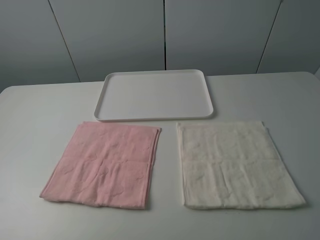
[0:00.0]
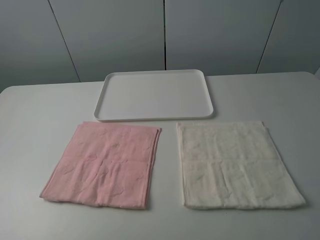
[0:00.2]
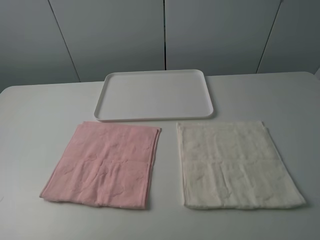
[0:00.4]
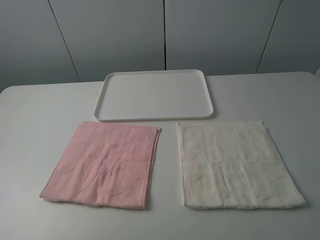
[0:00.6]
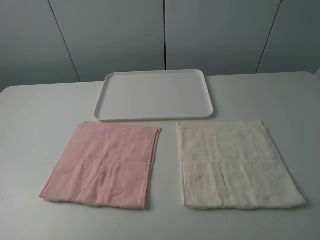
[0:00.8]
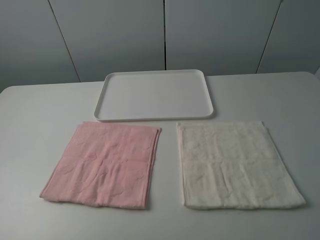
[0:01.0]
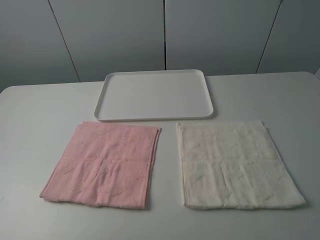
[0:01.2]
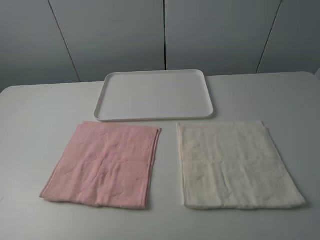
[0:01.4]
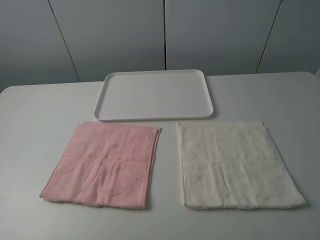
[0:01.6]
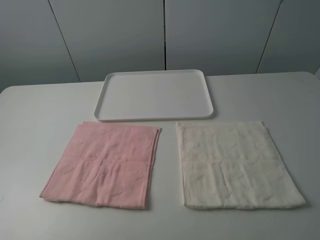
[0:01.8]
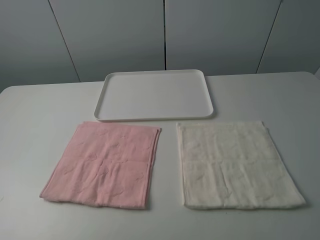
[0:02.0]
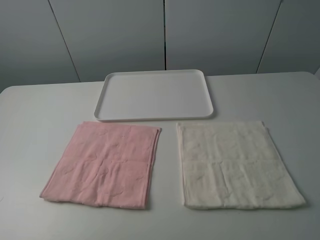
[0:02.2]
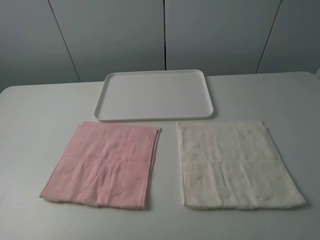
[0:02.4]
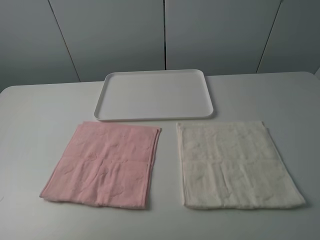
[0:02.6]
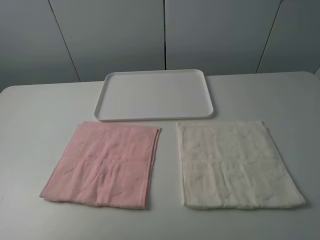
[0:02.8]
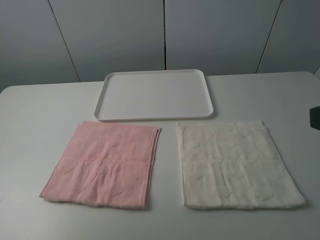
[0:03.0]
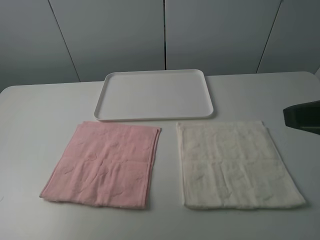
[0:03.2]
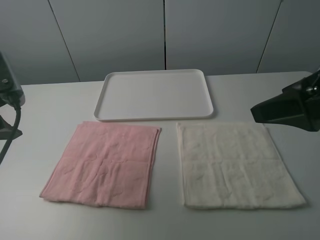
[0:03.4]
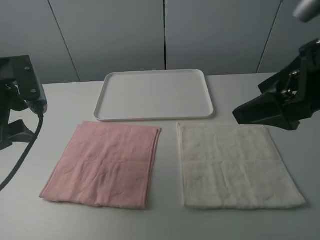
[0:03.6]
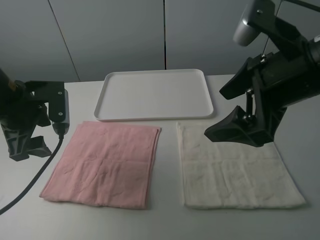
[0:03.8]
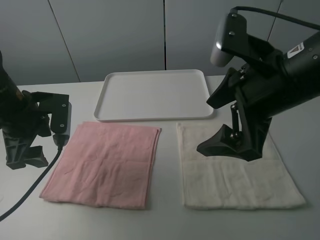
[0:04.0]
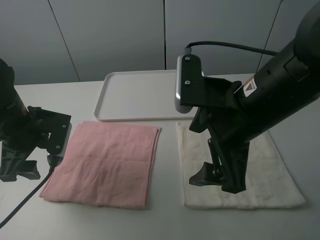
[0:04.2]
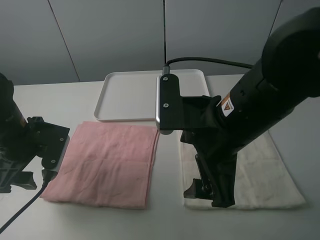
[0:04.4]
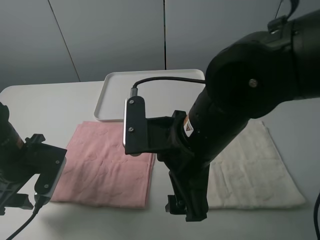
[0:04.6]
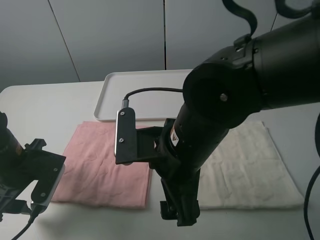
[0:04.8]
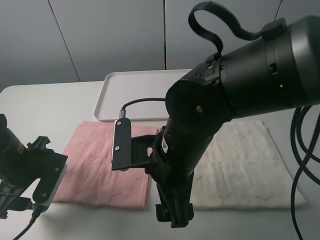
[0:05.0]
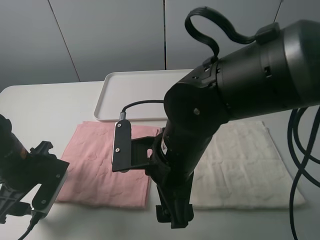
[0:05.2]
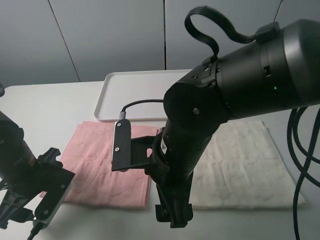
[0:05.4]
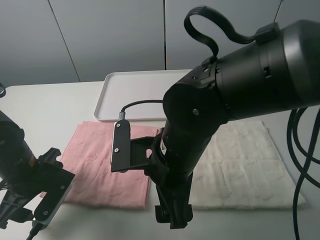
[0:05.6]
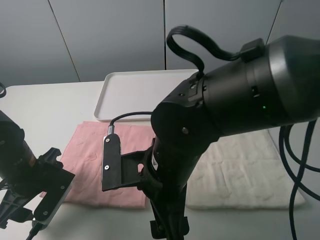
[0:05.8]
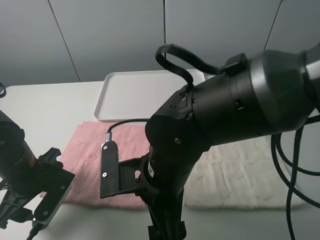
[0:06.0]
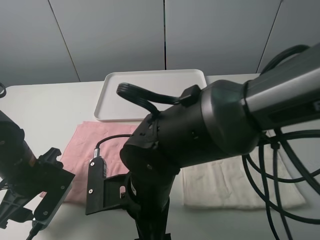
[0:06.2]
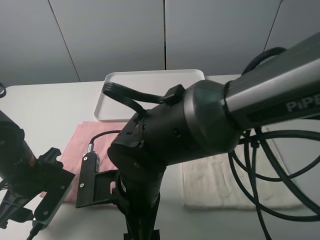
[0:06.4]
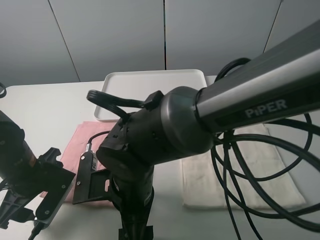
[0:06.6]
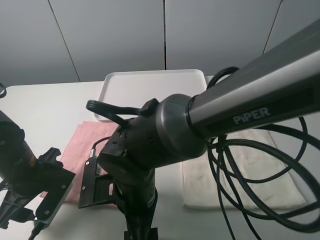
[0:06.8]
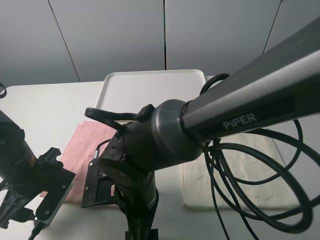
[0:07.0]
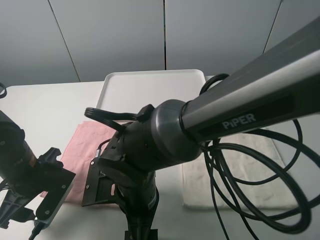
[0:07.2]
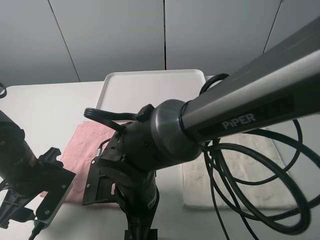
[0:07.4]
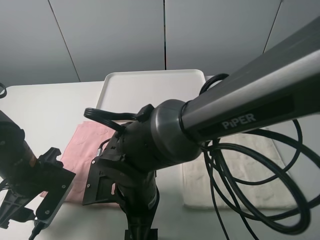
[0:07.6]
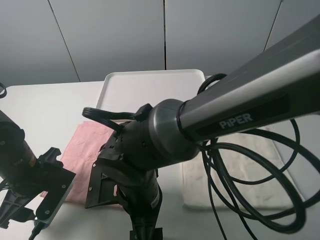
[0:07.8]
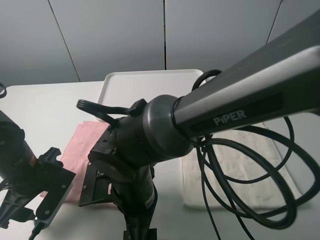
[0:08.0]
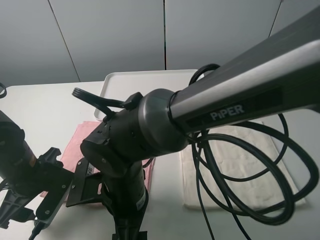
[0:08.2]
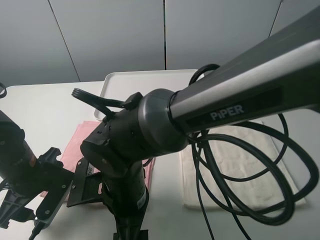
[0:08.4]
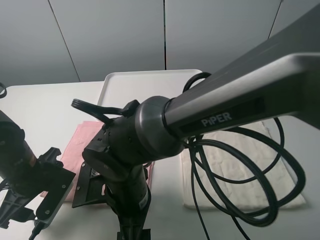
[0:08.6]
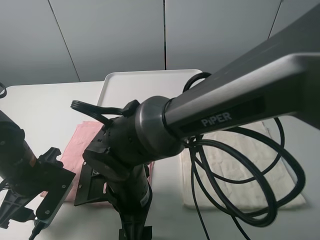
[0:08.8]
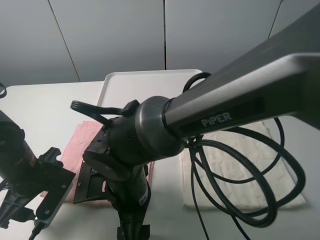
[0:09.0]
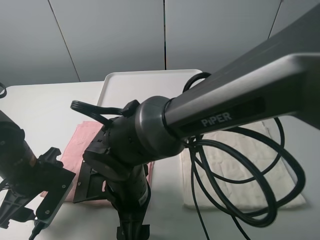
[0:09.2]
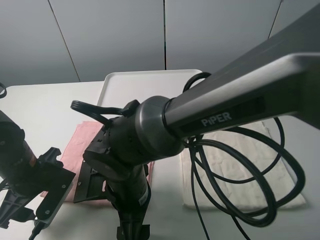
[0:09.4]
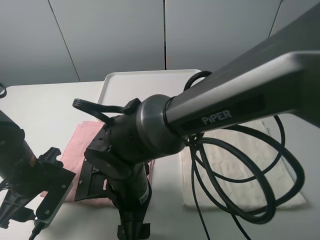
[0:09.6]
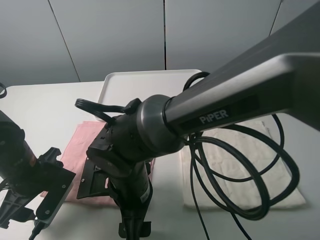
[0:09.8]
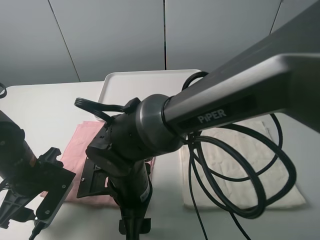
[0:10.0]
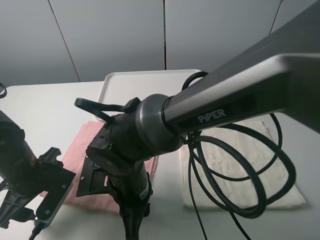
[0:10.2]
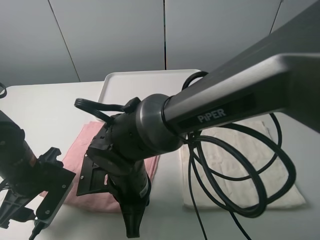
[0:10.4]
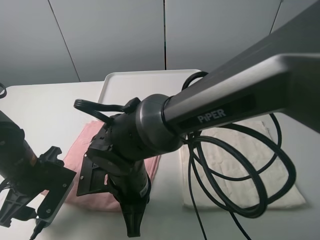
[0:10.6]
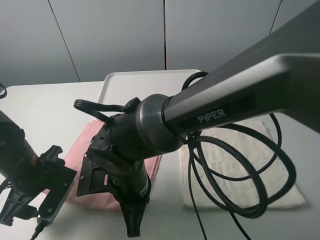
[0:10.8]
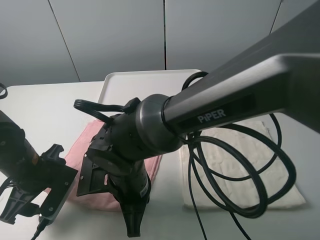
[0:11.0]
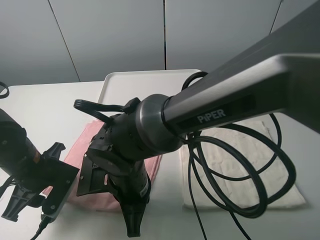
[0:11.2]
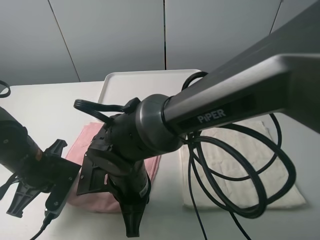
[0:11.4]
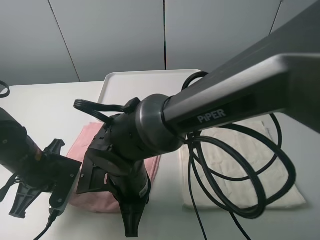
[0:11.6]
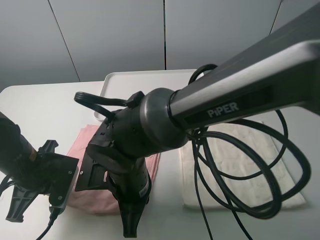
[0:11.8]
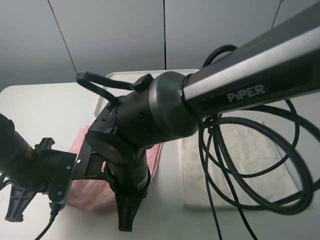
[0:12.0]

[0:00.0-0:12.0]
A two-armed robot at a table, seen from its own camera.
Task of the whole recording: fold one of the towels by two grippers and place it on the tray,then fold another towel by two grippers and place it on the folded towel.
Step, 0:00.0 to 0:11.4: Grasp the pink towel with the left gripper.
0:00.0 to 0:01.6: Both grippers stay put.
0:03.0 to 0:04.4: The right gripper is displaced to the left, downward and forward by approximately 20 cm, while the left gripper moves downward and forward, approximately 20 cm.
0:04.4 to 0:06.0: The right gripper heads downward and to the left, covering roughly 10 cm, while the left gripper shifts by about 5 cm.
0:06.0 to 0:07.6: The right gripper shifts by about 5 cm.
0:09.0 to 0:10.4: The right gripper closes.
0:10.4 to 0:12.0: The left gripper closes.

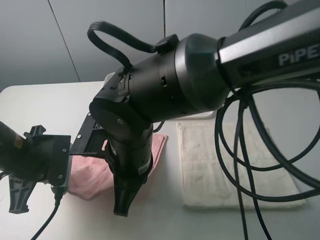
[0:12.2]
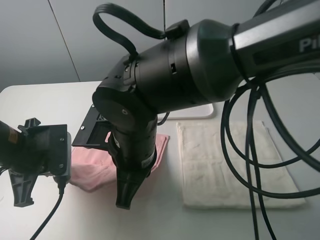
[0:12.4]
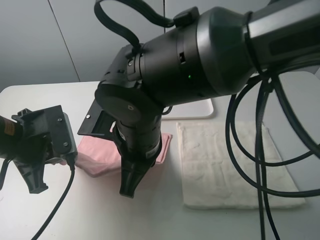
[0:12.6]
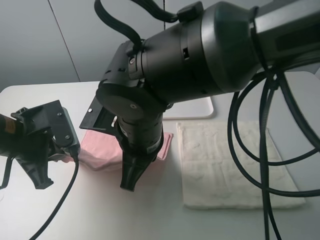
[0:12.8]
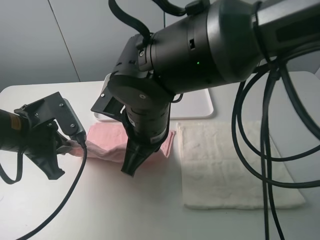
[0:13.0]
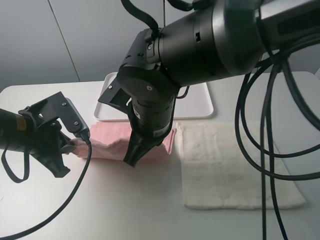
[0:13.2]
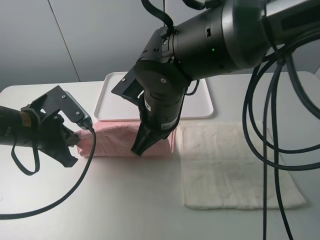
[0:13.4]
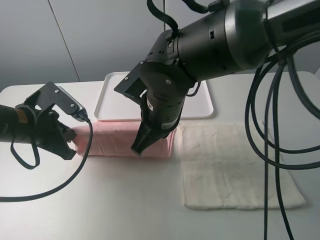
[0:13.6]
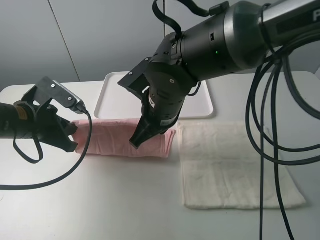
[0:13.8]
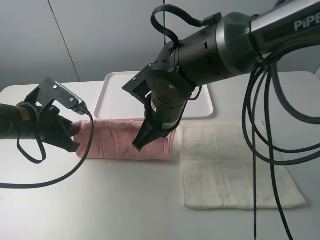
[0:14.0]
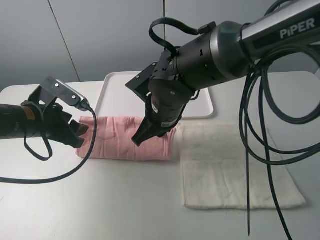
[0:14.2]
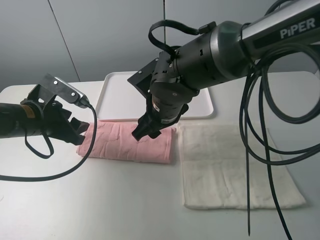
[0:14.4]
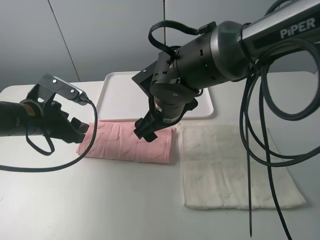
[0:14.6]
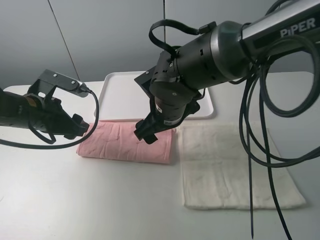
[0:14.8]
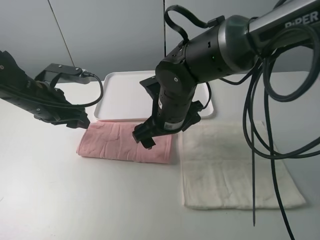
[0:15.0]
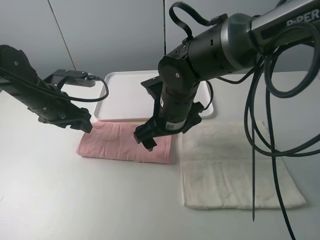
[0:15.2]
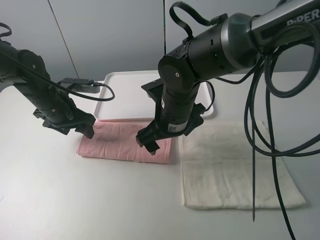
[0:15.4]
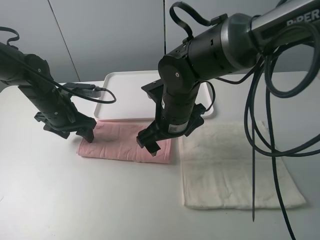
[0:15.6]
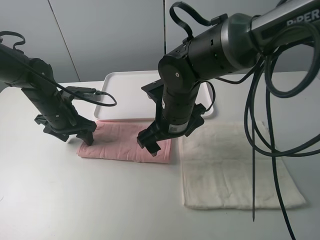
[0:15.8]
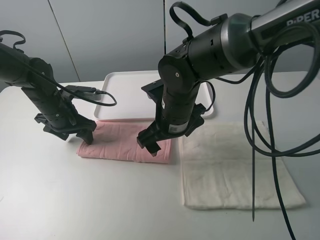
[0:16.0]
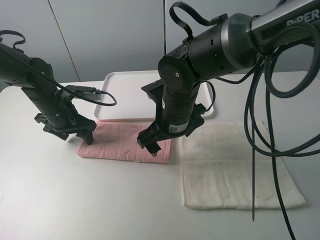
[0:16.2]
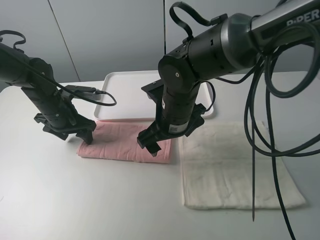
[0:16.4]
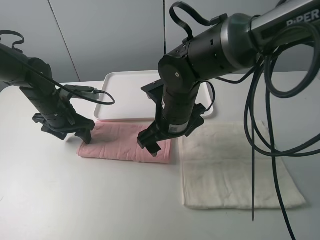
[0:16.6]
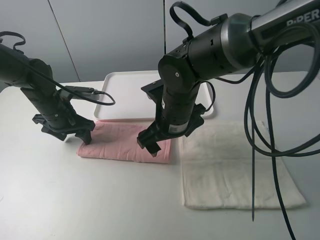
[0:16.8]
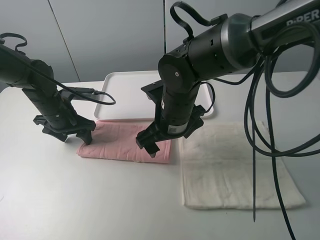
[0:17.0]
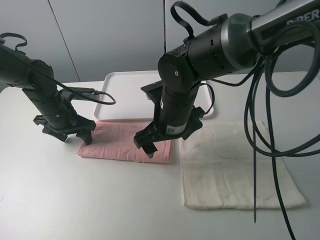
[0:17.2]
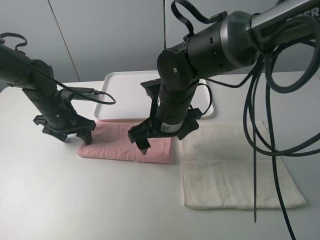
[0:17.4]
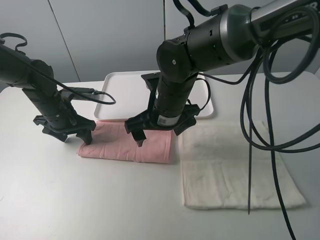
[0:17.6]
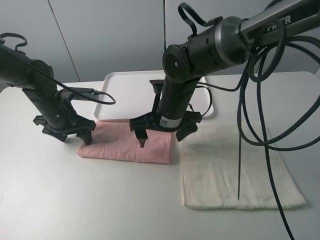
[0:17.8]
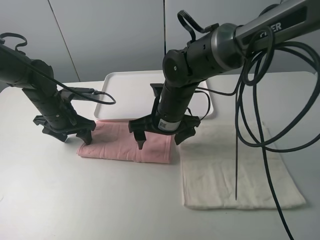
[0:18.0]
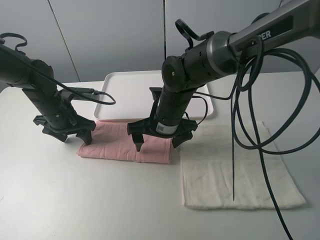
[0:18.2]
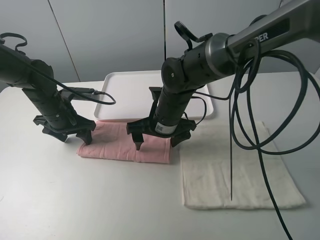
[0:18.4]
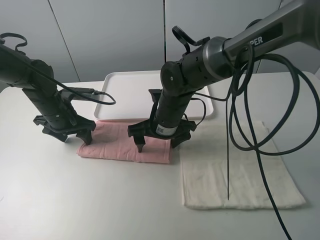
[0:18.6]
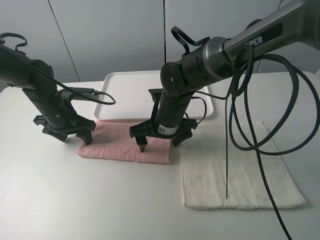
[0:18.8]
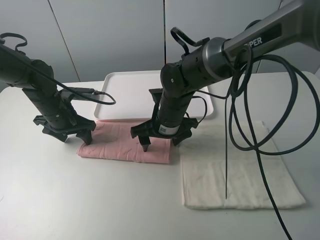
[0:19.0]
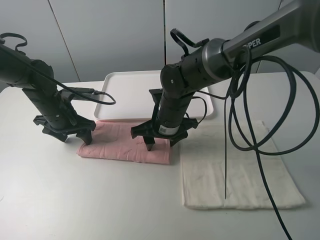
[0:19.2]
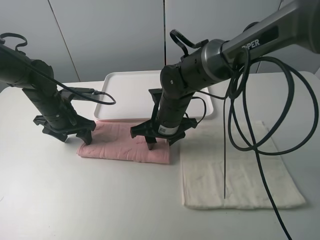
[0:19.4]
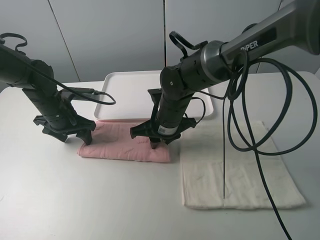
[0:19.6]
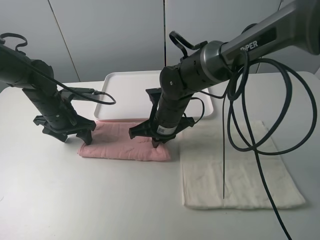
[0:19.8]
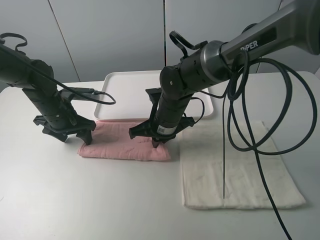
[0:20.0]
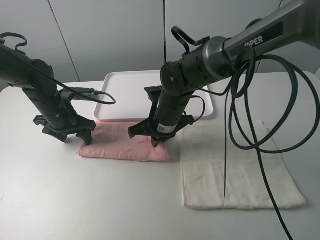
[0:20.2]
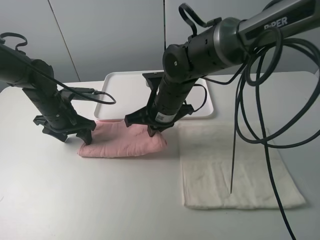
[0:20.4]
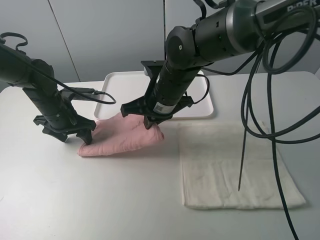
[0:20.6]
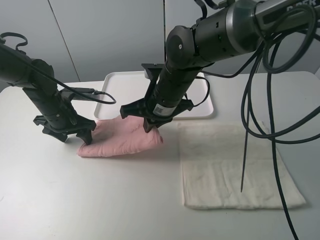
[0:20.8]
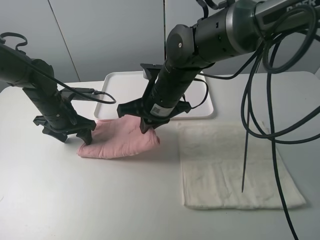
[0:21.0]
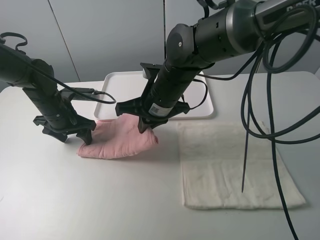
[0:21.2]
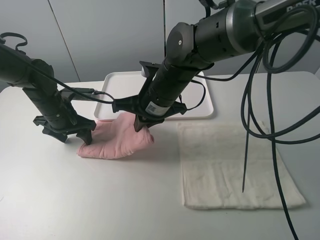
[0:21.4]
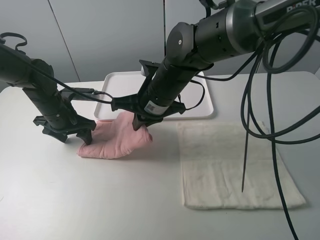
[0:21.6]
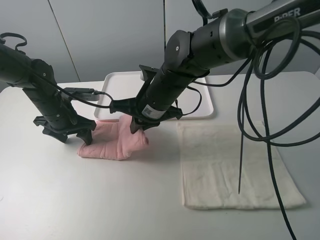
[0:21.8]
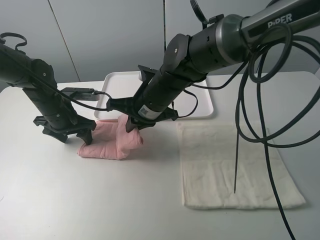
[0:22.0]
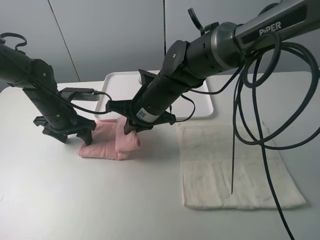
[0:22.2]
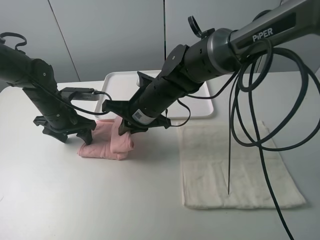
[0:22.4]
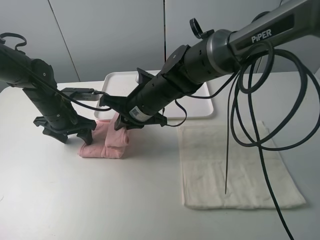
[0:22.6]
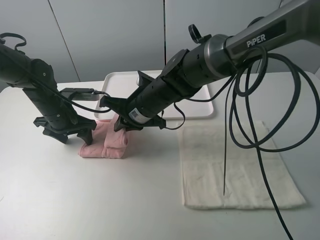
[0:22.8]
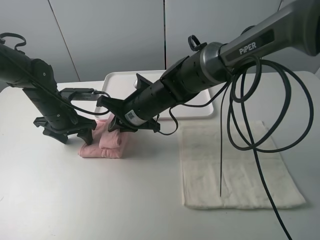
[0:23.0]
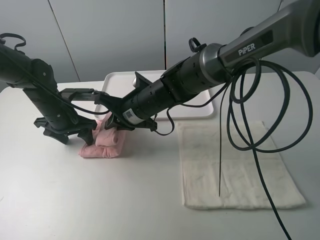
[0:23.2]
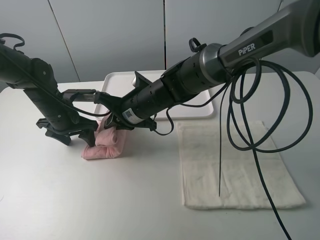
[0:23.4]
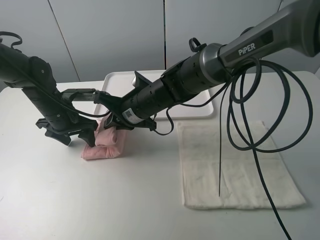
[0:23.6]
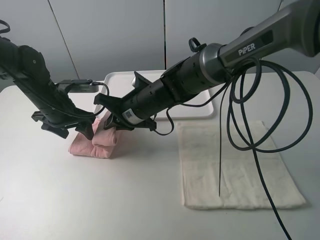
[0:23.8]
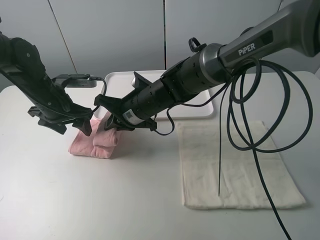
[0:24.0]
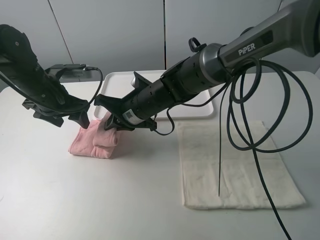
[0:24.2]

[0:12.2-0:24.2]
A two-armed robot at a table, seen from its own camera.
Task of the whole recording: fold one of the towels by two grippers and place it on the tray,then fold another towel by two grippers and place it on the folded towel.
Step, 0:12.2 to 0:14.4: Fold the pink towel upwards with the left gripper.
Step, 0:14.8 to 0:16.0: Press the pink towel with the left gripper.
Step, 0:16.2 to 0:20.2: Grasp the pink towel with the right gripper.
0:12.2 to 0:13.8: The right gripper heads forward, covering roughly 10 cm. Meanwhile the left gripper shifts roughly 5 cm forward.
0:13.8 to 0:15.2: The left gripper moves forward, about 10 cm, and opens. Meanwhile the right gripper opens its fingers.
0:15.2 to 0:16.6: The grippers stay close to where they were, moving slightly.
0:18.2 to 0:19.8: The right gripper closes up.
0:19.8 to 0:21.2: The right gripper shifts approximately 5 cm upward.
0:22.6 to 0:24.2: The left gripper travels upward by some 10 cm.
